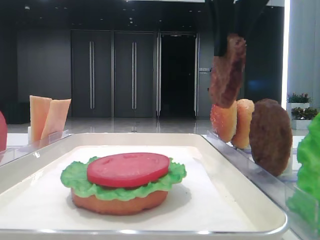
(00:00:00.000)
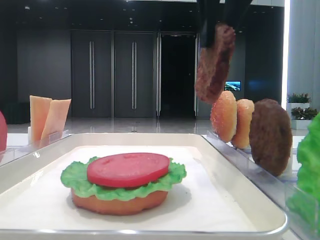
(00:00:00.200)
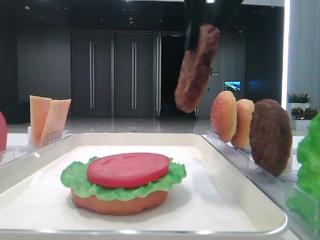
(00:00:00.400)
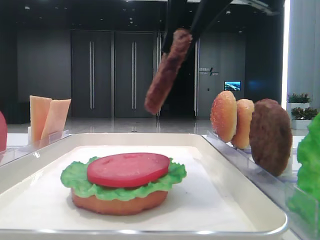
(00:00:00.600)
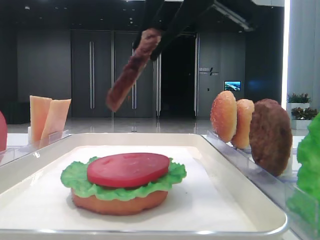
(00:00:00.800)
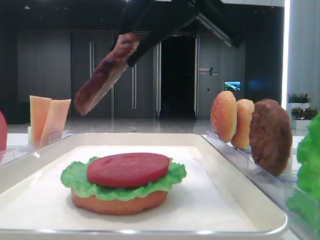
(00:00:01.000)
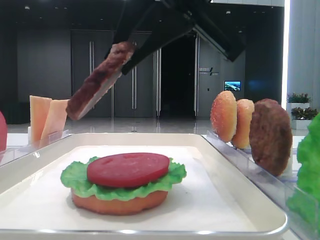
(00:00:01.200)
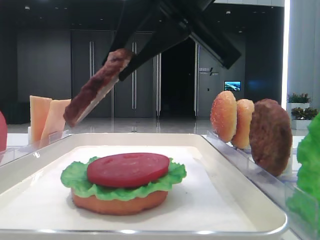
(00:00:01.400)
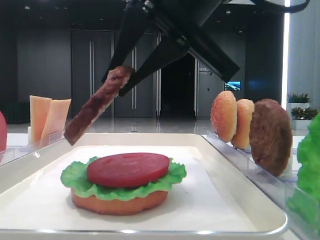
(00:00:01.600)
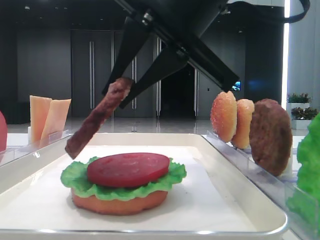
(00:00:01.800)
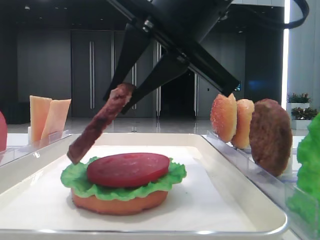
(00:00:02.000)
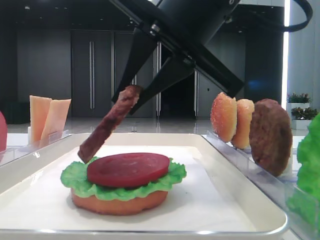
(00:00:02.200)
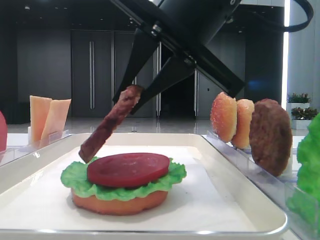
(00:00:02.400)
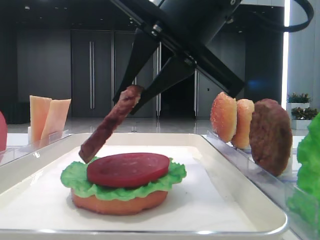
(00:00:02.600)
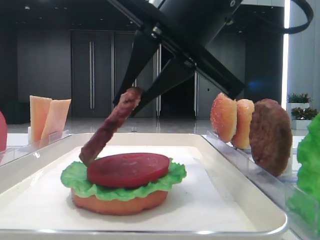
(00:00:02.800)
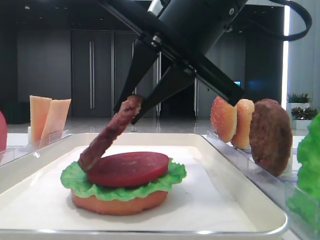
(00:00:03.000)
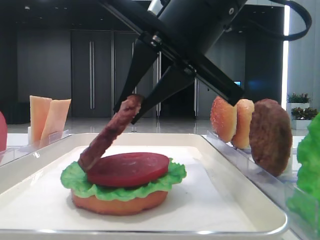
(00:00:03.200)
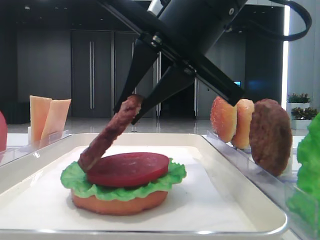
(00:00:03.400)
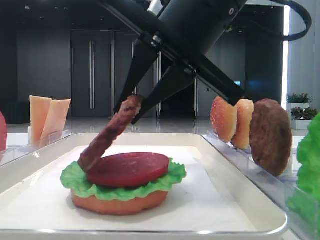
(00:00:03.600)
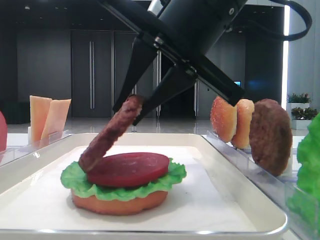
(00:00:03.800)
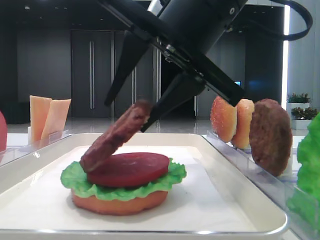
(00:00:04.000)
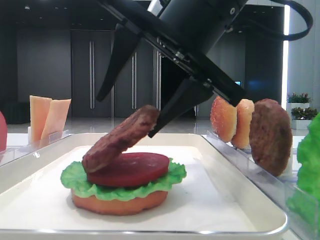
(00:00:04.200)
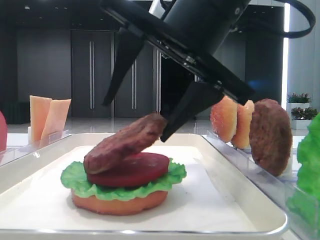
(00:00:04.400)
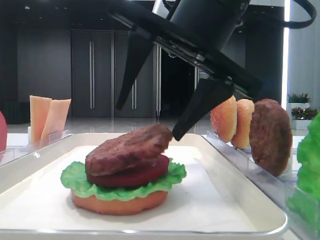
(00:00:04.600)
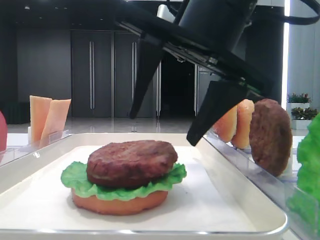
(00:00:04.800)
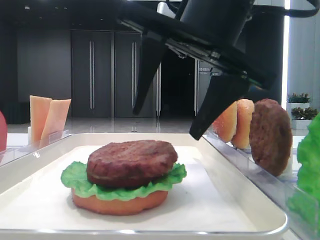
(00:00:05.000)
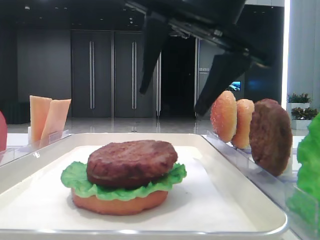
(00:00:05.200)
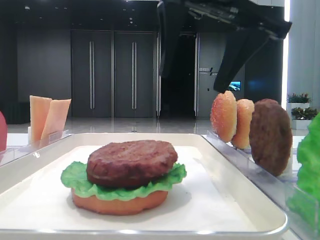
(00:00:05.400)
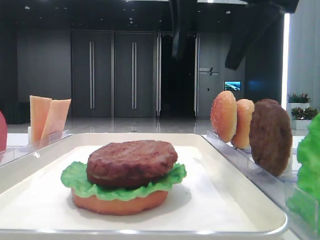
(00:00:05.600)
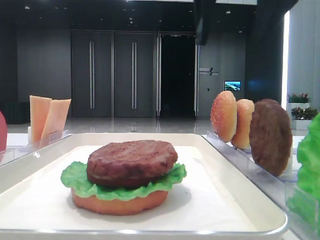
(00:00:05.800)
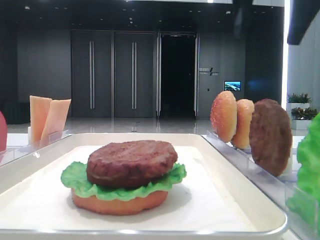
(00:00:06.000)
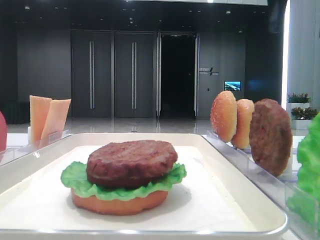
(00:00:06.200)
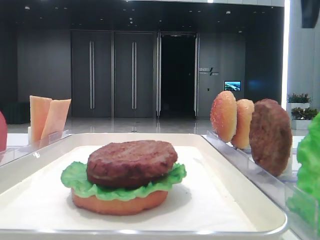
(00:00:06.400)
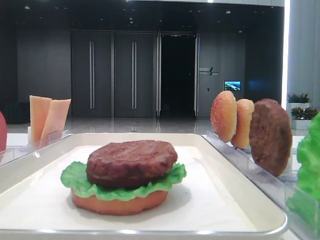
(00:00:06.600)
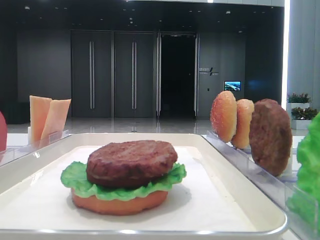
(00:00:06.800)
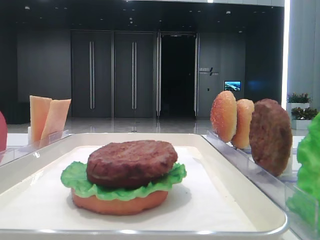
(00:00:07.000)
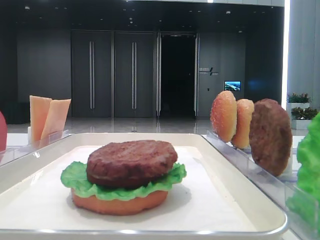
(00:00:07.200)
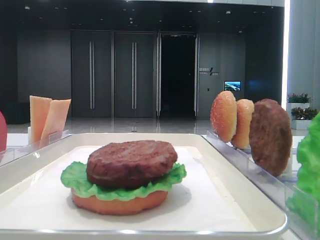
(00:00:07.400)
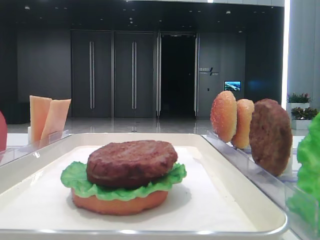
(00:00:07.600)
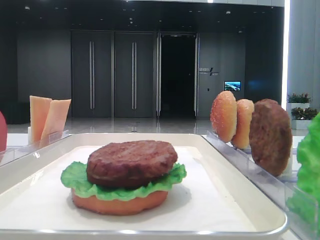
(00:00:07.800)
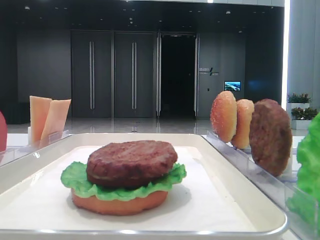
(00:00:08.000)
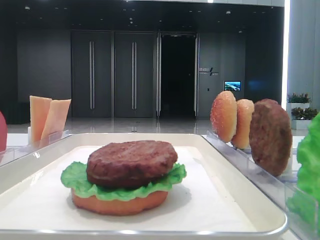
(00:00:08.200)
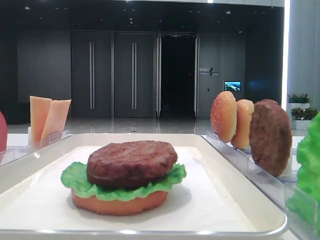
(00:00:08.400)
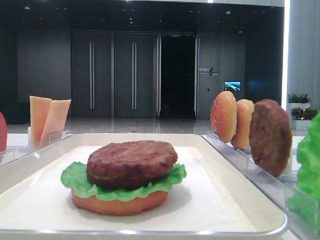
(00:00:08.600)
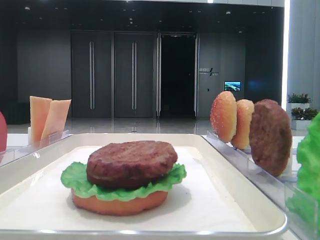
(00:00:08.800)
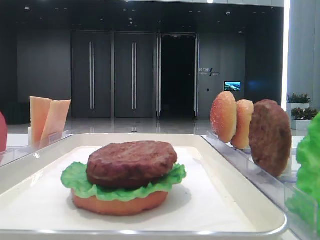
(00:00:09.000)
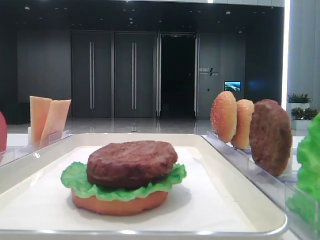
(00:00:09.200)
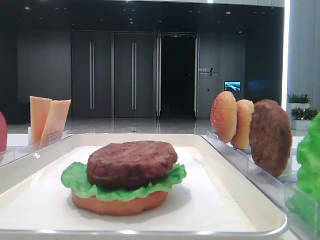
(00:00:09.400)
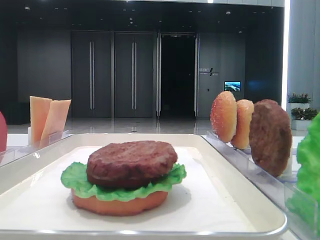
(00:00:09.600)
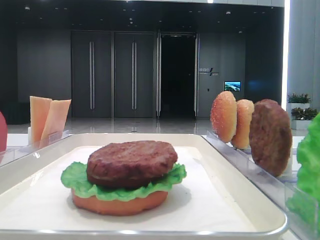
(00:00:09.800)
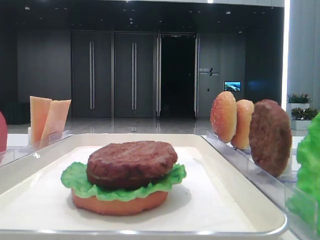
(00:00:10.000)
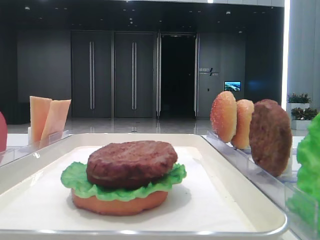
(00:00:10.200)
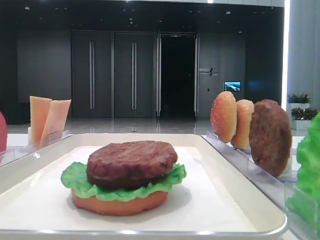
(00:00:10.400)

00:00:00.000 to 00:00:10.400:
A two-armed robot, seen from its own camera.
Step, 00:00:00.000 to 00:00:04.600: Place the patty on the tomato slice with the right hand.
00:00:00.000 to 00:00:01.400: The right gripper heads downward and backward, covering about 10 cm.
00:00:01.400 to 00:00:03.000: The grippers stay close to where they were, moving slightly.
00:00:03.000 to 00:00:04.400: The right gripper opens.
00:00:04.400 to 00:00:06.000: The right gripper shifts about 15 cm upward and to the right.
00:00:06.000 to 00:00:07.400: The right gripper travels to the right by about 15 cm.
00:00:07.400 to 00:00:09.000: The right gripper goes some 30 cm backward.

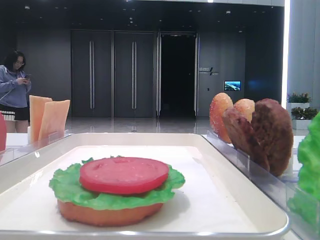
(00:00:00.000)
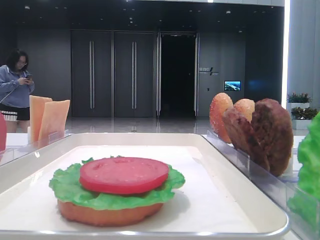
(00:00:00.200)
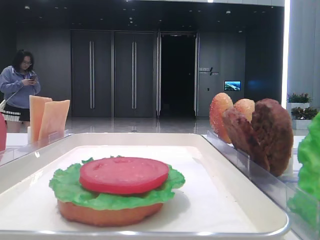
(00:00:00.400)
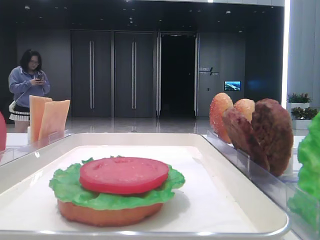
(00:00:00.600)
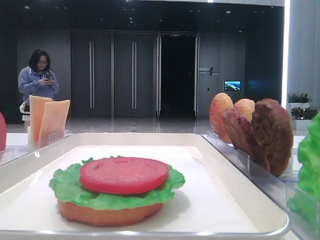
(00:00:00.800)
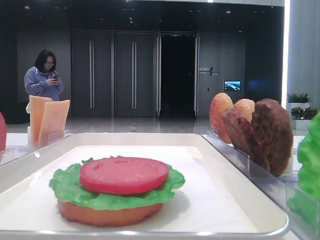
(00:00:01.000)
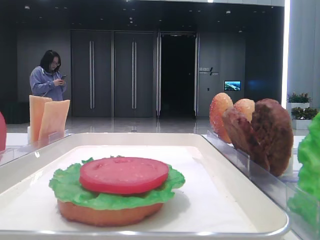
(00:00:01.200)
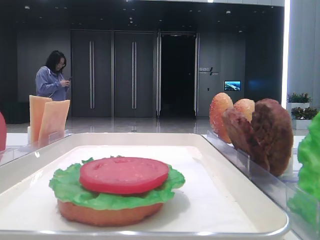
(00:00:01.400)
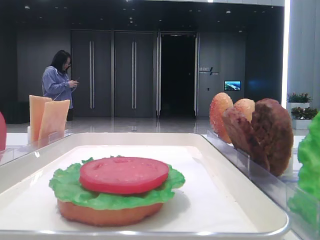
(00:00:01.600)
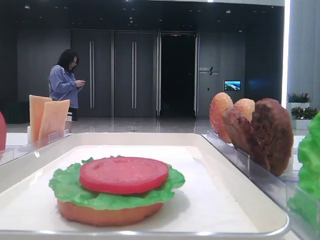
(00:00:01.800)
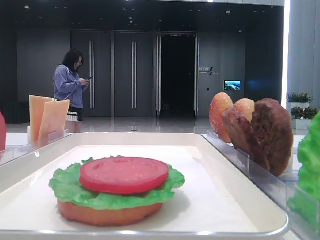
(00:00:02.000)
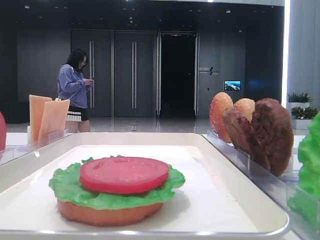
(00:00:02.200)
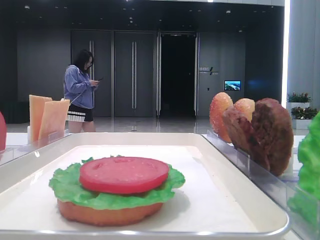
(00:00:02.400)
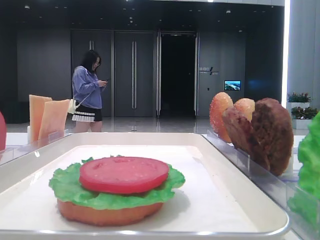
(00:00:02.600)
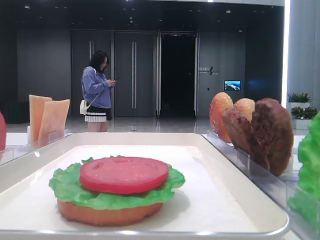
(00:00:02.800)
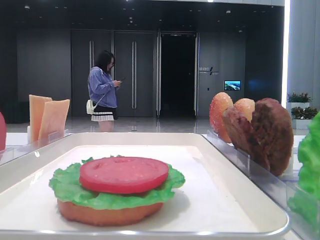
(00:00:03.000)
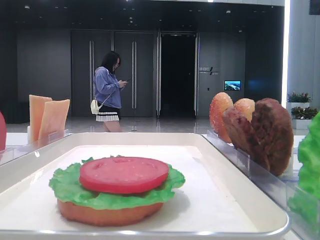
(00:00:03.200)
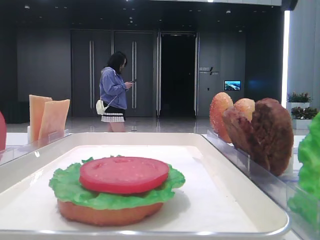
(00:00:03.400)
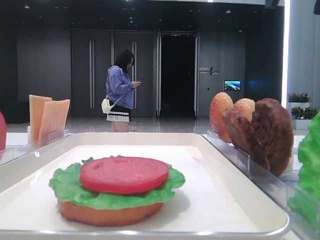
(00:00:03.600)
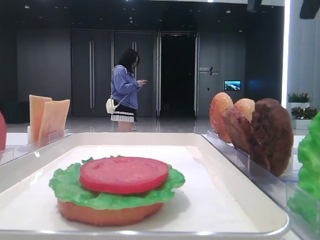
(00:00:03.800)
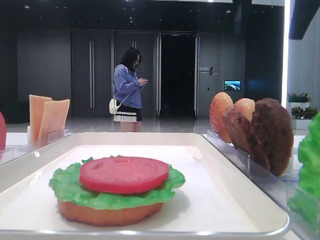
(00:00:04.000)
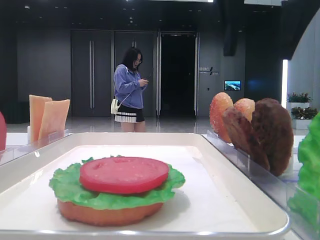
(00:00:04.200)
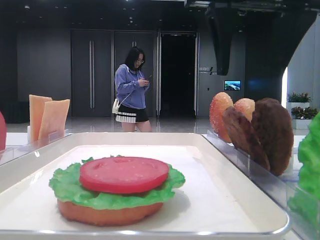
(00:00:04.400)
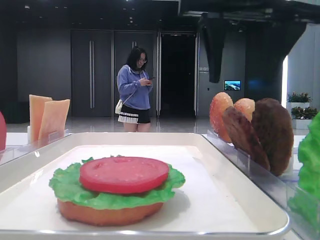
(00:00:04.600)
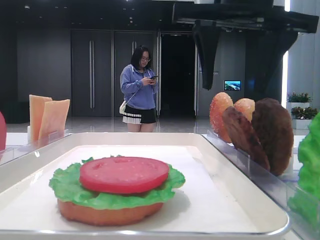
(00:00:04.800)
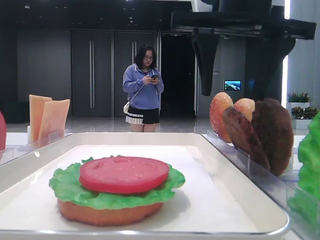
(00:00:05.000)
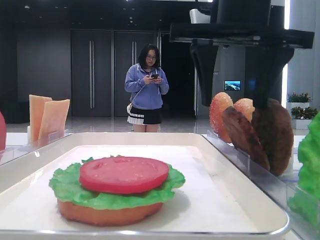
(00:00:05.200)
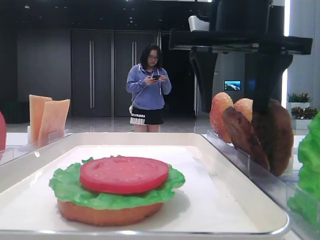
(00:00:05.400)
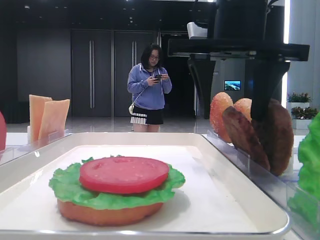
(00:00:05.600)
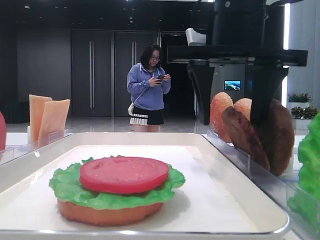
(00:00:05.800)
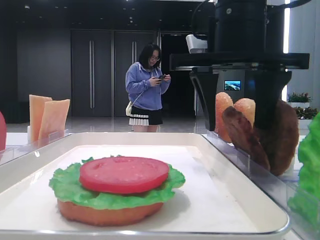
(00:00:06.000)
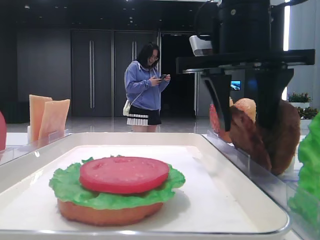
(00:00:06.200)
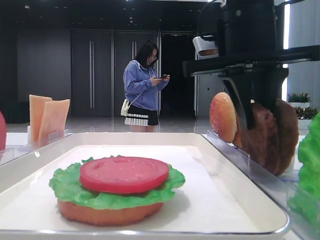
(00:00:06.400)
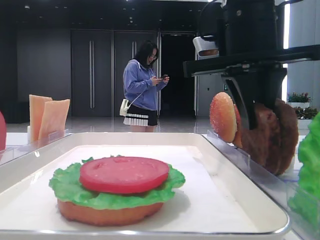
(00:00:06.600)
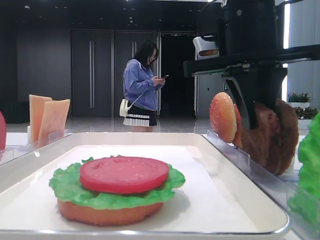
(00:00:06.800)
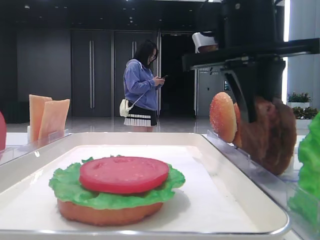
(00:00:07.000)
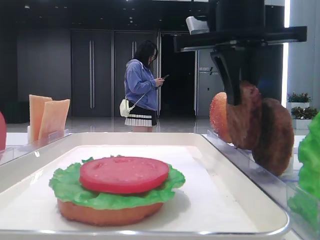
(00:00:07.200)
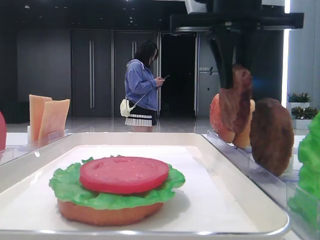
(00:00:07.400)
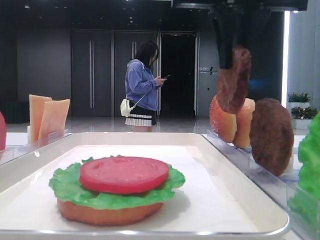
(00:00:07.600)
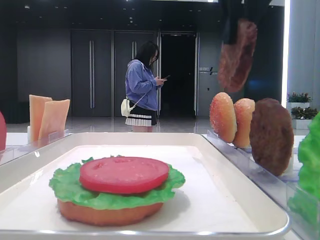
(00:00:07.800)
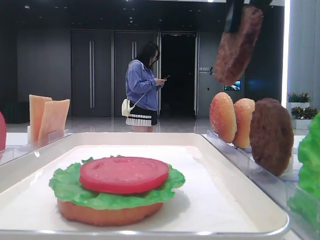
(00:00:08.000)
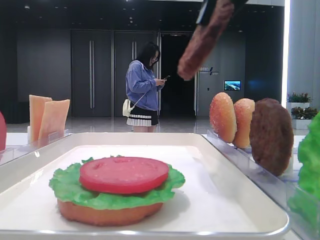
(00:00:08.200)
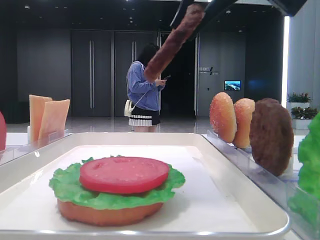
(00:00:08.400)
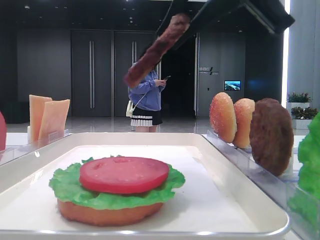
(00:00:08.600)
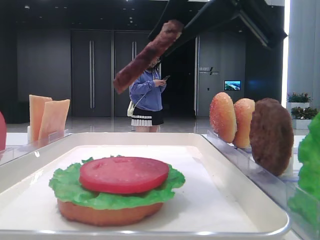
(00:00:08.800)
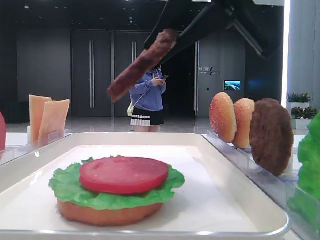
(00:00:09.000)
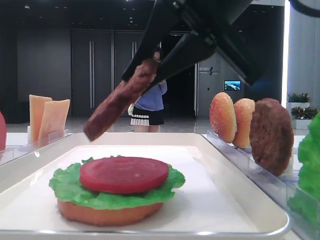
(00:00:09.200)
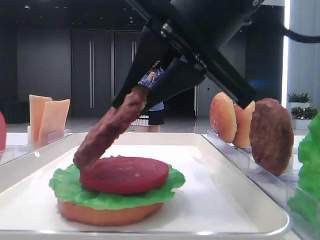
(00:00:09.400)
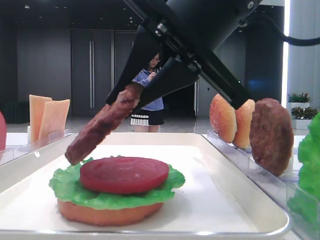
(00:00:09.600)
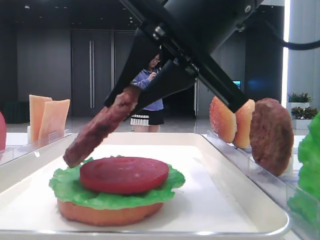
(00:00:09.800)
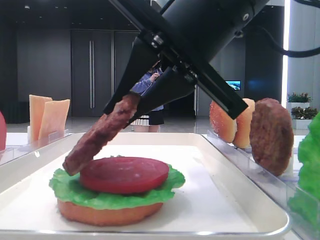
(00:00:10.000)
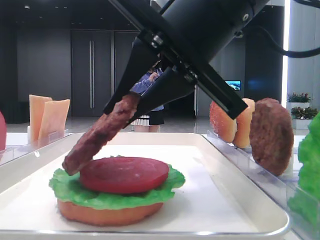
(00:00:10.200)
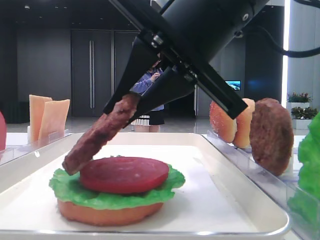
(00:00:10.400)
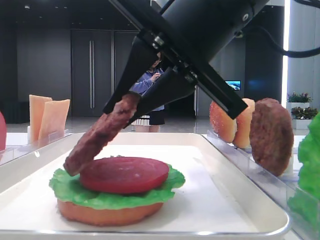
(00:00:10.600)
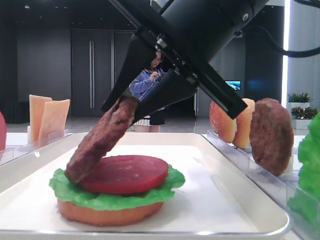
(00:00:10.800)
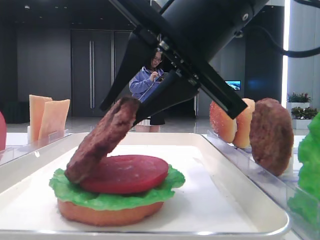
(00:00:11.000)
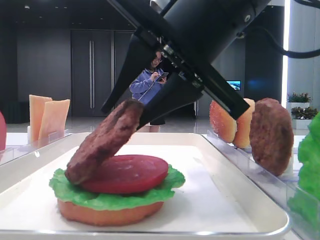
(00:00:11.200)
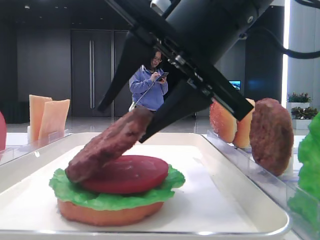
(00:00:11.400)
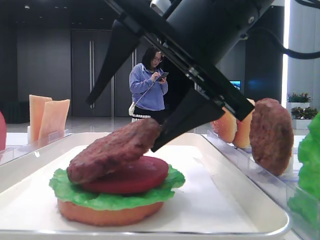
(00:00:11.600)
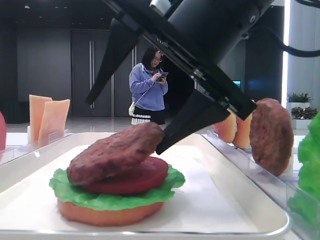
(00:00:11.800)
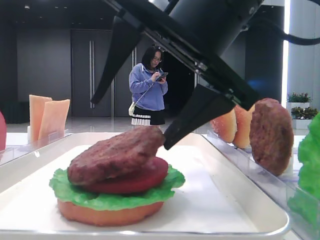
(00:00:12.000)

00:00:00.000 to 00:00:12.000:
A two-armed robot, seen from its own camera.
Step, 00:00:00.000 to 00:00:06.600: Grab the patty with the right hand.
00:00:03.000 to 00:00:04.400: The right gripper moves to the left and downward, some 20 cm.
00:00:04.400 to 00:00:06.000: The right gripper shifts approximately 5 cm downward.
00:00:06.000 to 00:00:07.600: The right gripper is displaced upward by roughly 5 cm, and closes up.
00:00:07.600 to 00:00:09.000: The right gripper is displaced backward by roughly 10 cm.
00:00:09.000 to 00:00:10.400: The right gripper is displaced downward by about 5 cm.
00:00:10.400 to 00:00:12.000: The right gripper opens up.
